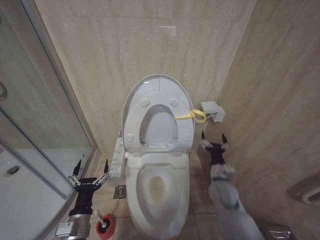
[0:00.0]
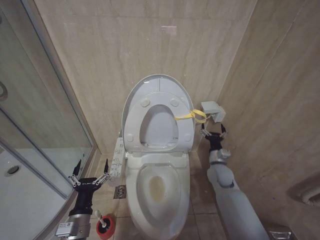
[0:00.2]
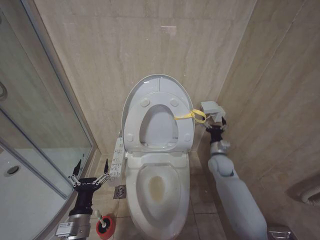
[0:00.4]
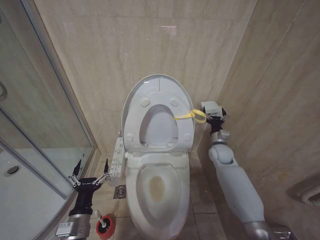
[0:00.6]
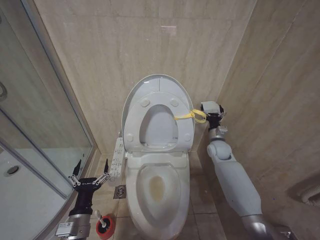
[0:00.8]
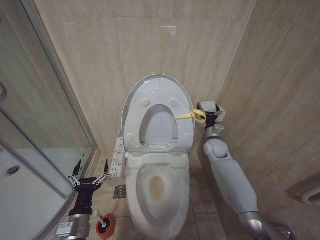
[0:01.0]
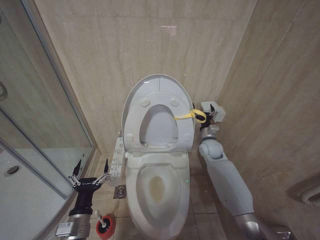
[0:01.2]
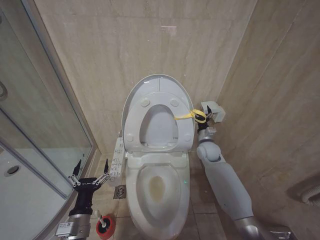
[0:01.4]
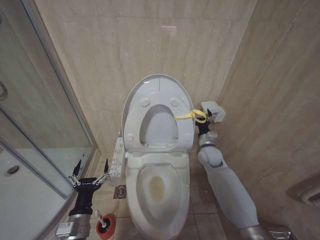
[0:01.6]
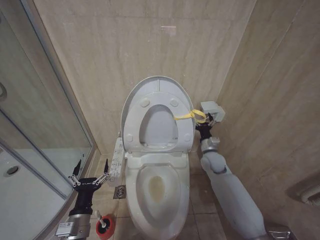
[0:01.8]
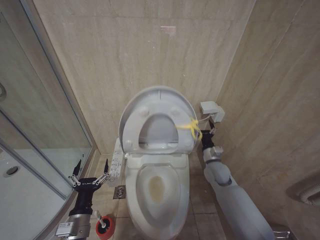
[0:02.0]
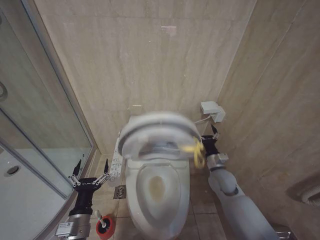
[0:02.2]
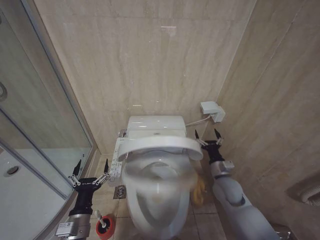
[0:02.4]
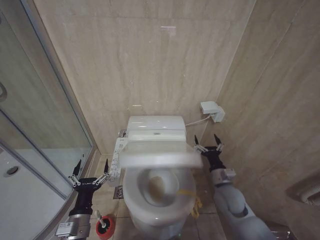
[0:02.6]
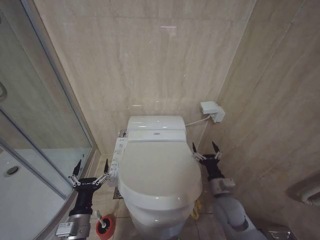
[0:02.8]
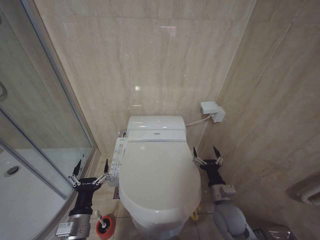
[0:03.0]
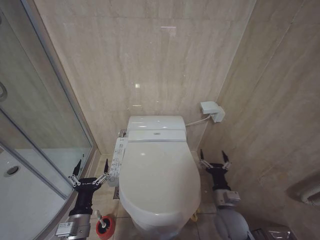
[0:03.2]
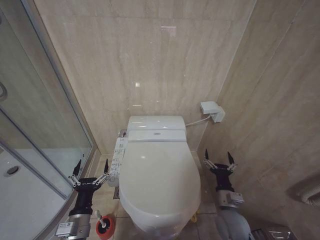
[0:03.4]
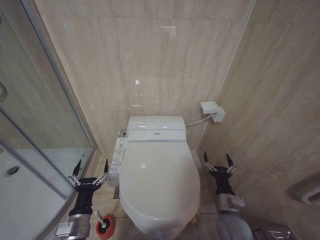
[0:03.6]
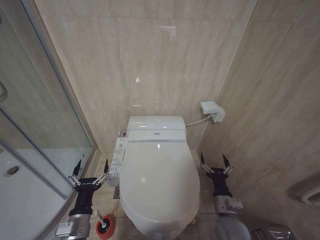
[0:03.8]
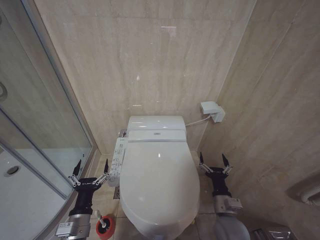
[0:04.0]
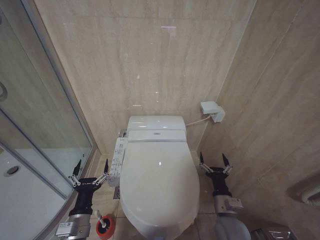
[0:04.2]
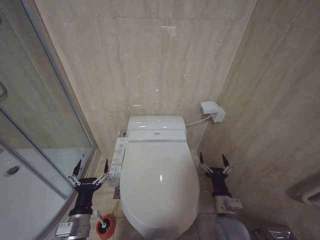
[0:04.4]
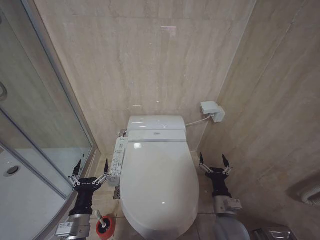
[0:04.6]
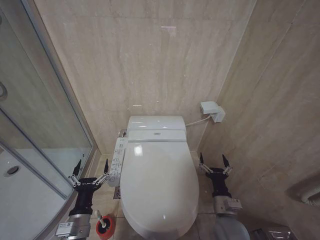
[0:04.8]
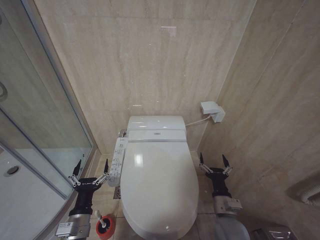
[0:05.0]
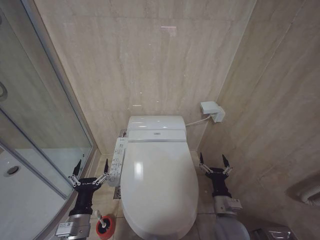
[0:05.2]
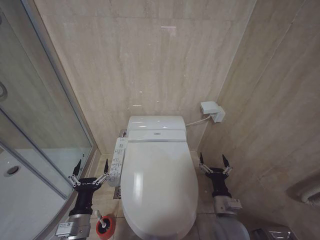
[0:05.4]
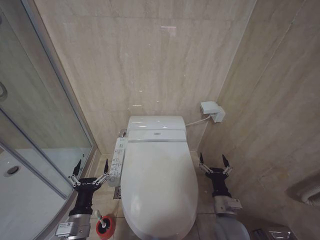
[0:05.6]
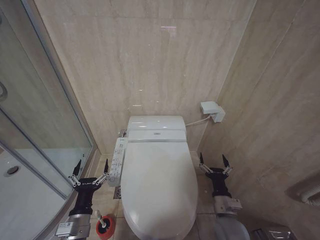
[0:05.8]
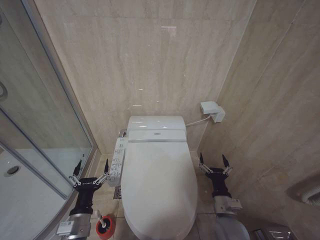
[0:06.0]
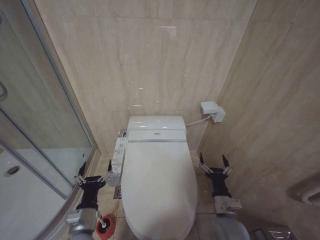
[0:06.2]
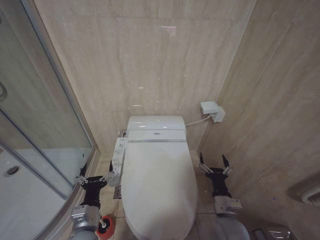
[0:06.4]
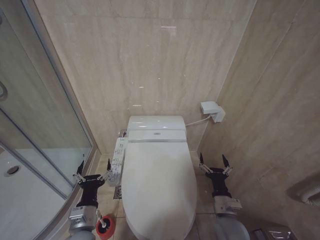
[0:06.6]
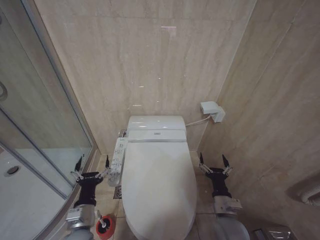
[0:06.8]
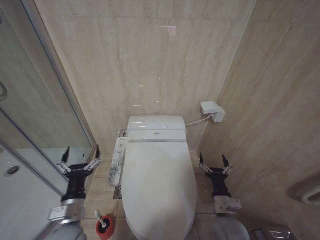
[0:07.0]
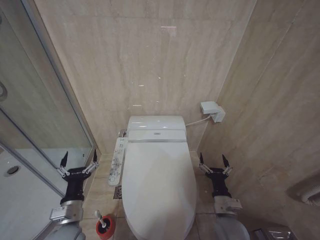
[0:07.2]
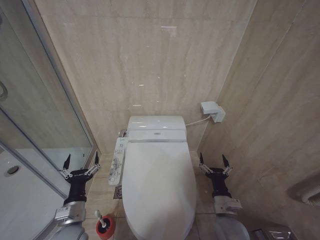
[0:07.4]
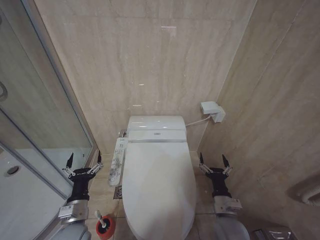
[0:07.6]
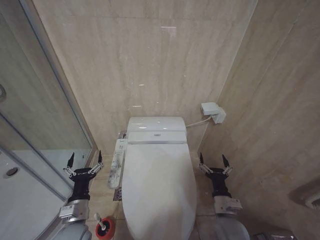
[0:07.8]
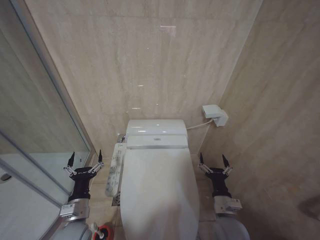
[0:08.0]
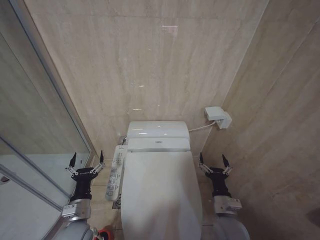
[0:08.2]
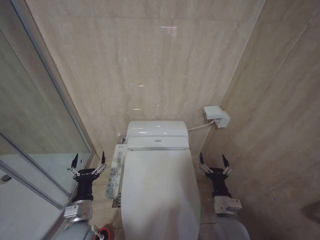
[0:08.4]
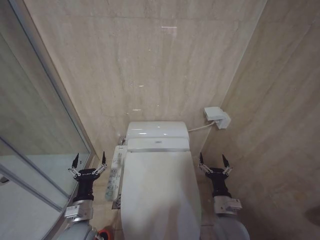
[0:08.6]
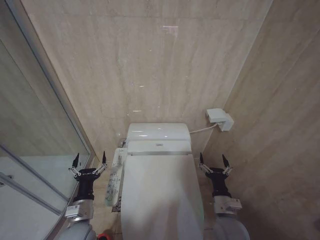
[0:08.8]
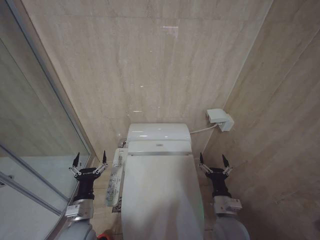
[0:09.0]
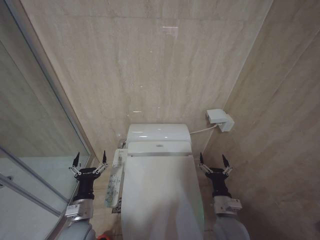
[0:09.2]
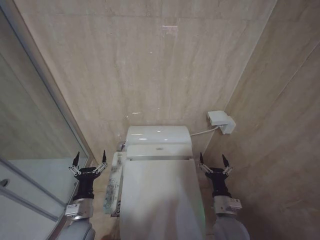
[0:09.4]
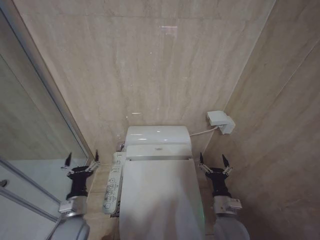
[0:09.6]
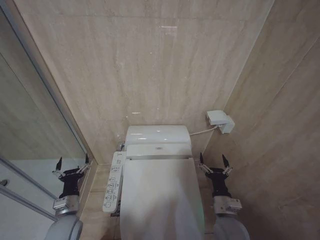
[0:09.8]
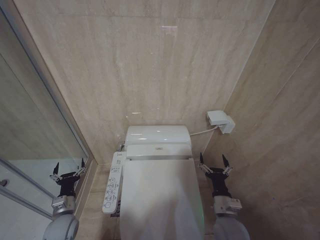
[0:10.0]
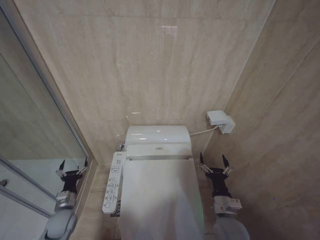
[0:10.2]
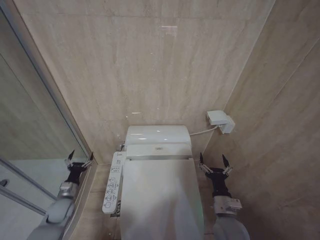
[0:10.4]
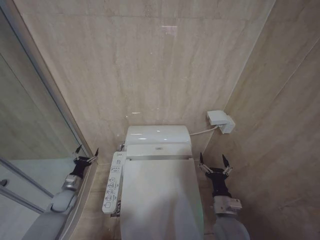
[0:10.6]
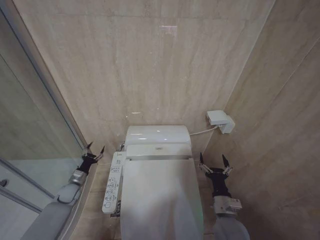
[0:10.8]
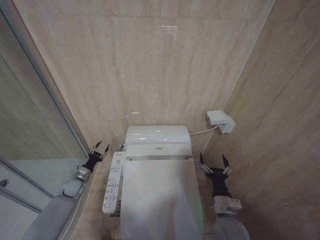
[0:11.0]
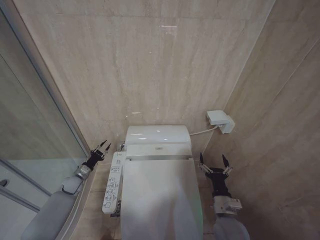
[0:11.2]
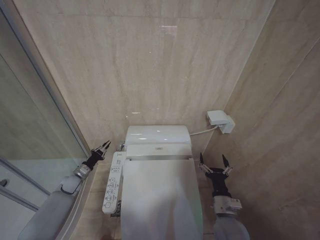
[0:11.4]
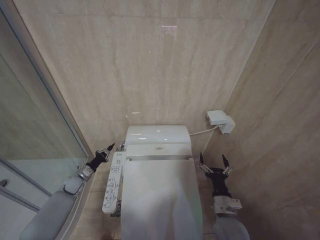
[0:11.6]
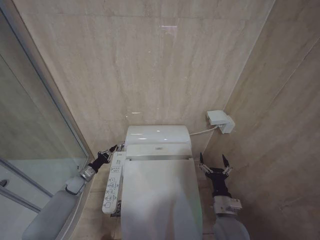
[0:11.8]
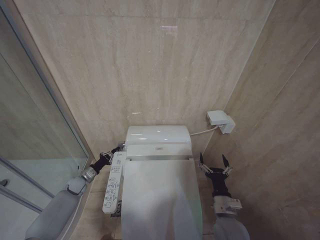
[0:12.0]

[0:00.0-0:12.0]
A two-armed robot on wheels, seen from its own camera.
Task of the whole recording: Open the toilet lid, clean the toilet bowl with a toilet brush, close the toilet lid, and flush.
0:00.0 to 0:01.6: The right gripper travels forward by about 15 cm.
0:01.6 to 0:03.0: The right gripper shifts approximately 20 cm backward.
0:03.0 to 0:04.4: The grippers make only small movements.
0:04.4 to 0:06.0: Both grippers stay about where they are.
0:06.0 to 0:09.0: There are only small adjustments of the grippers.
0:09.0 to 0:10.4: The left gripper travels to the left, forward and downward by roughly 20 cm.
0:10.4 to 0:12.0: The left gripper heads forward, covering approximately 10 cm, and closes its fingers.

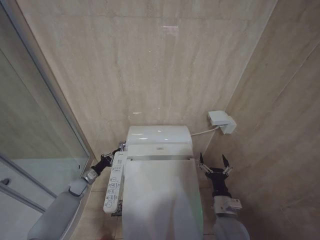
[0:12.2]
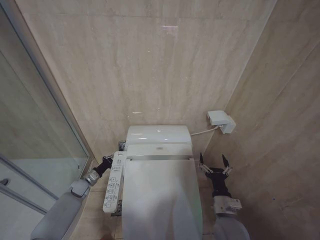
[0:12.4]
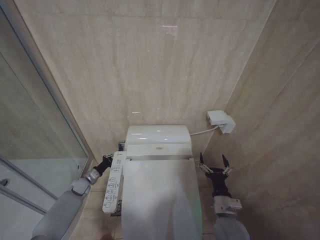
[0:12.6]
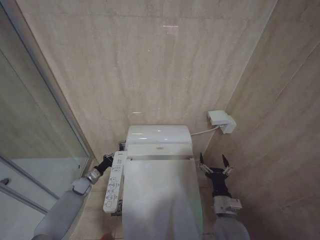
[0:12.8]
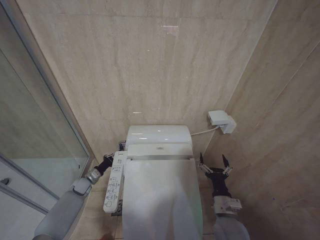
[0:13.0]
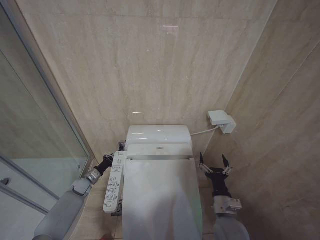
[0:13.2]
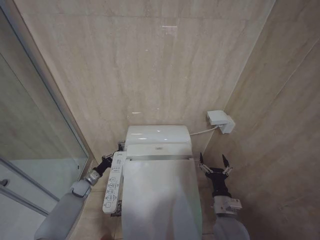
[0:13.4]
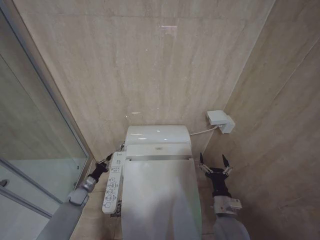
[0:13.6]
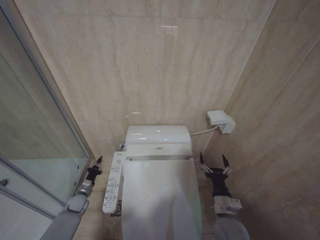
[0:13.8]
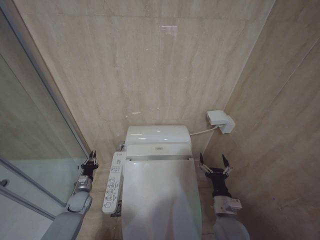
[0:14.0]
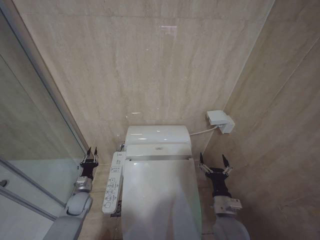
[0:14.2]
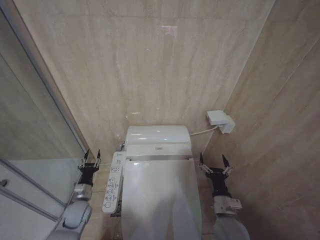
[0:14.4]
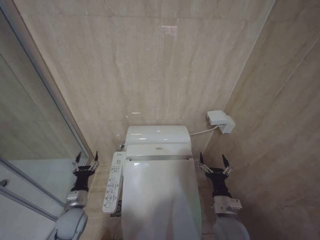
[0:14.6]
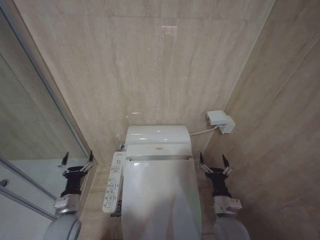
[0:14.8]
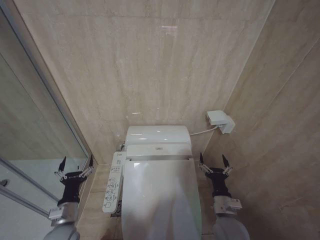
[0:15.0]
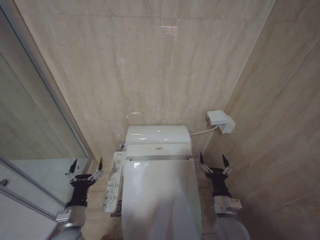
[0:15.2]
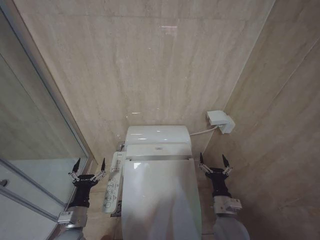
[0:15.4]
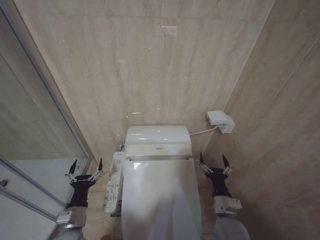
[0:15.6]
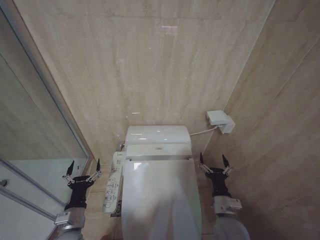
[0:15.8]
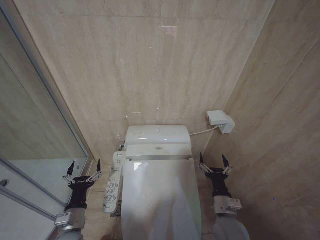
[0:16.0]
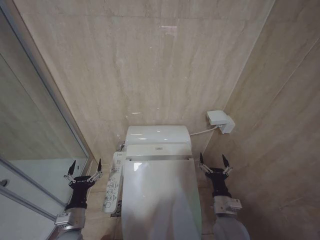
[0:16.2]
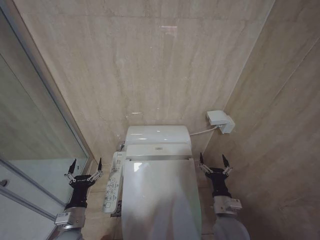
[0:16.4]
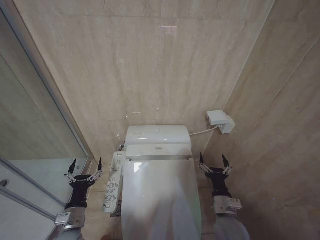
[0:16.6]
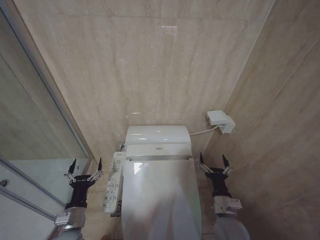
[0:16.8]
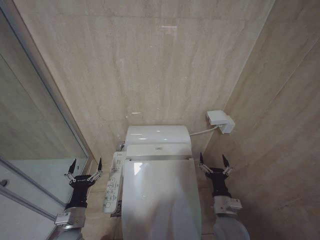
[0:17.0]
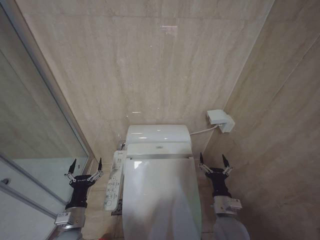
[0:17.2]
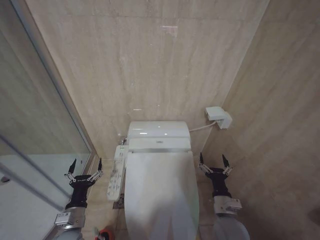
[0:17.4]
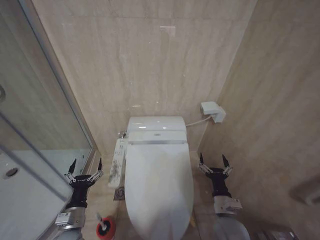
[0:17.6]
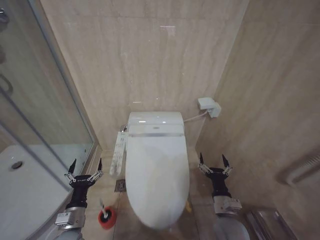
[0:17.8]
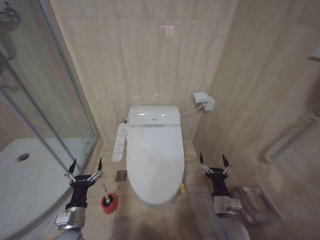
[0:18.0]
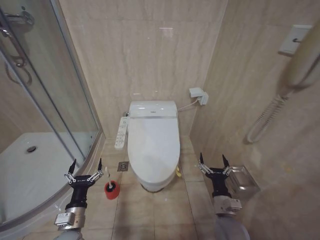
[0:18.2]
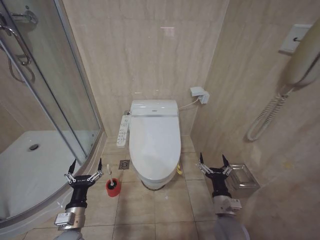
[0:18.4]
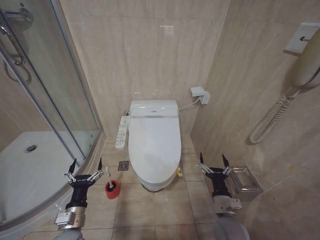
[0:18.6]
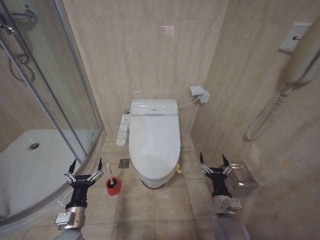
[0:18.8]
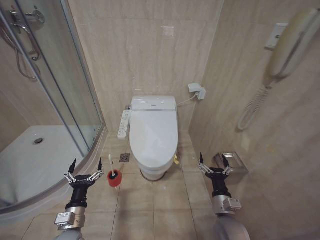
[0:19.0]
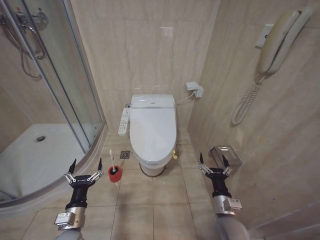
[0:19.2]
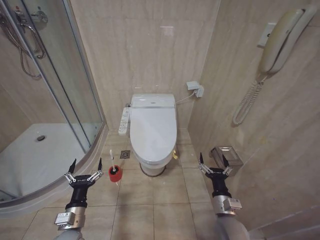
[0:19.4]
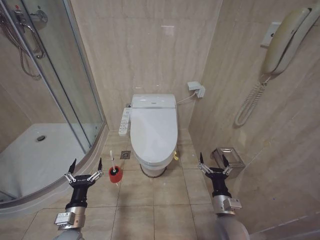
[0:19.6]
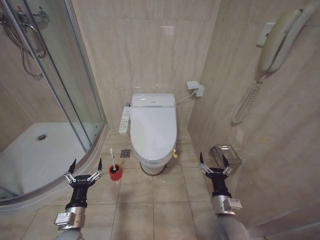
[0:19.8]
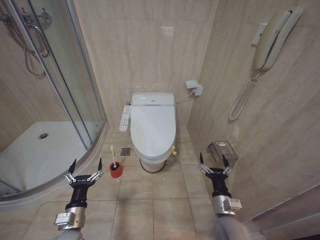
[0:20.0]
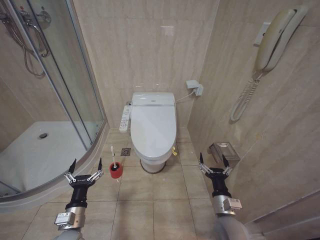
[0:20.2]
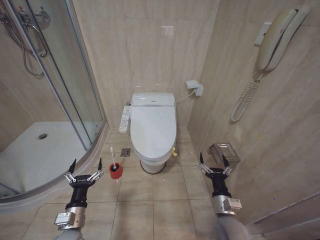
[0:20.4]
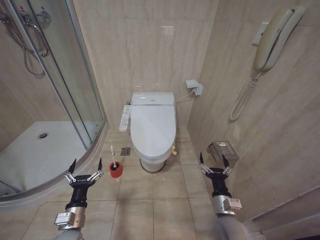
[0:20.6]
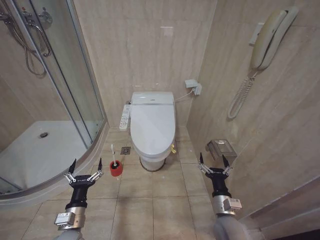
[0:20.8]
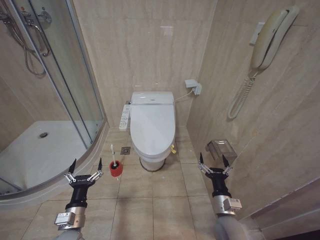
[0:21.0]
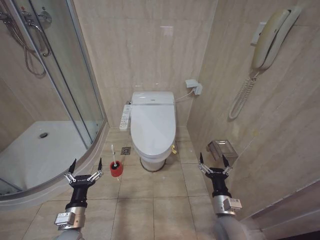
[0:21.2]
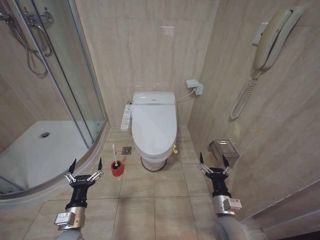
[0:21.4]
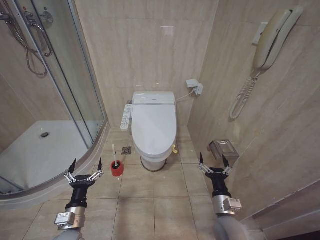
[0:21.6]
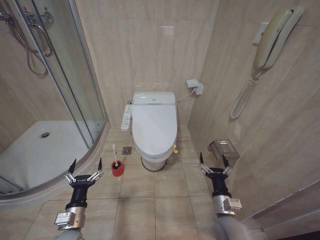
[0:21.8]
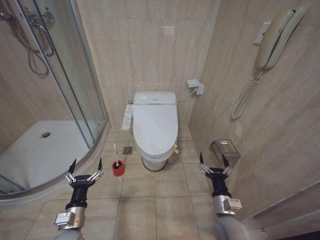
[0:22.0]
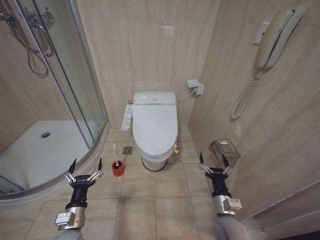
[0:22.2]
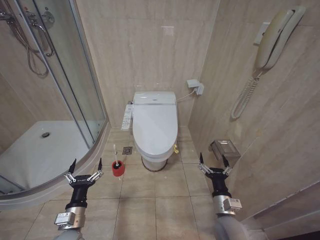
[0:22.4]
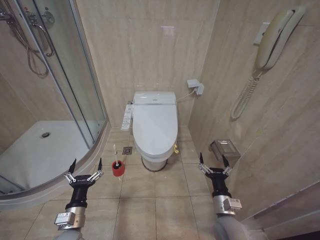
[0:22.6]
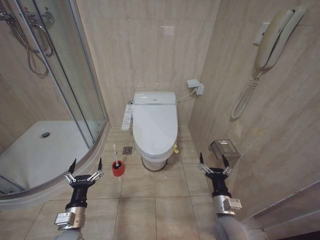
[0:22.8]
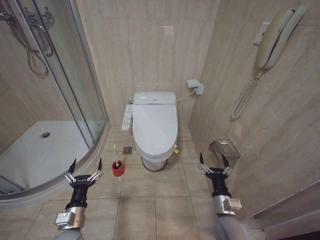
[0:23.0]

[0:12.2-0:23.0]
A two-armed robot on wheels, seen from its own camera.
Task of the whole recording: Open the toilet lid, clean the toilet bowl with a toilet brush, close the toilet lid, and flush.
0:12.2 to 0:13.8: The left gripper moves downward, approximately 5 cm.
0:13.8 to 0:15.2: The left gripper heads backward, upward and to the right, covering some 25 cm, and opens.
0:15.2 to 0:16.8: The two grippers keep their place.
0:18.4 to 0:23.0: The two grippers keep their place.
